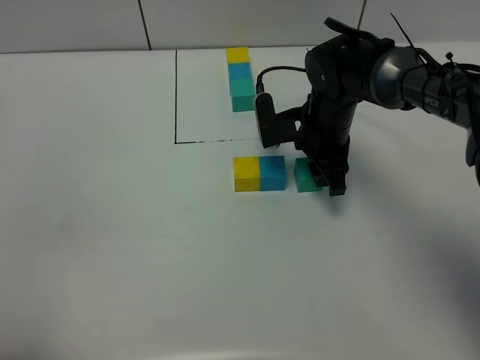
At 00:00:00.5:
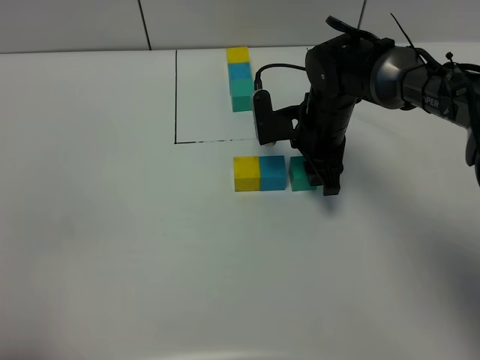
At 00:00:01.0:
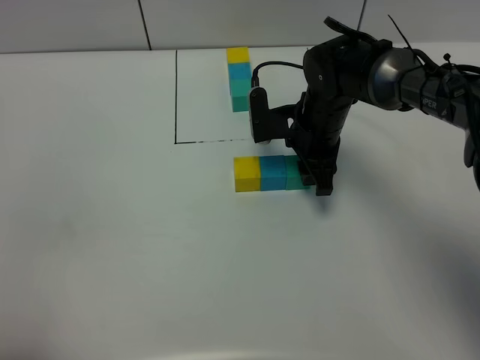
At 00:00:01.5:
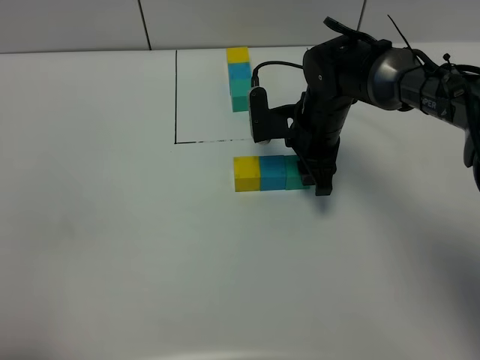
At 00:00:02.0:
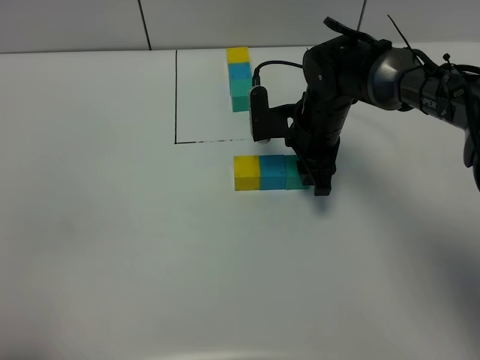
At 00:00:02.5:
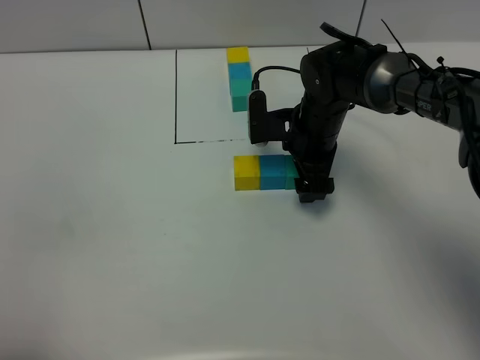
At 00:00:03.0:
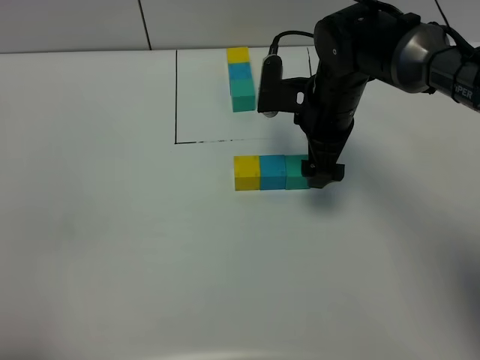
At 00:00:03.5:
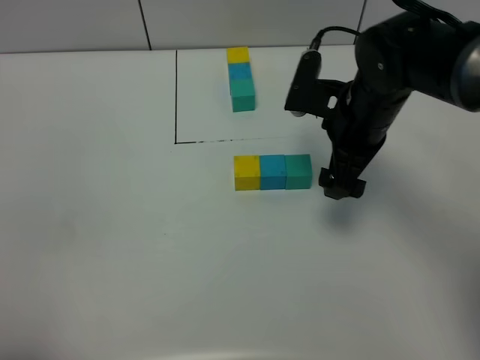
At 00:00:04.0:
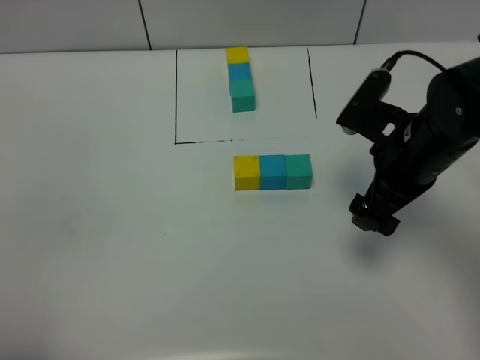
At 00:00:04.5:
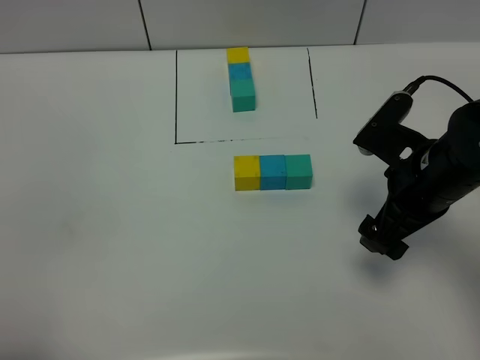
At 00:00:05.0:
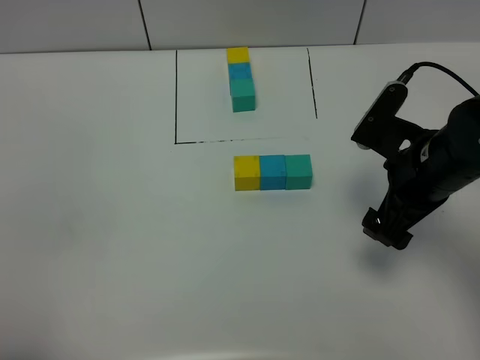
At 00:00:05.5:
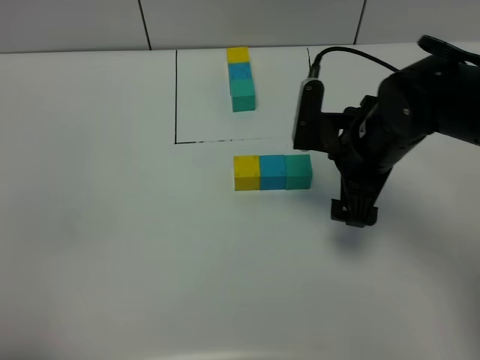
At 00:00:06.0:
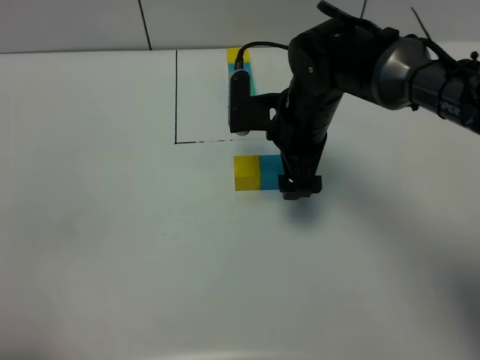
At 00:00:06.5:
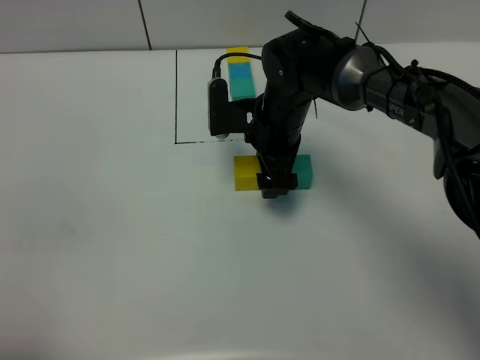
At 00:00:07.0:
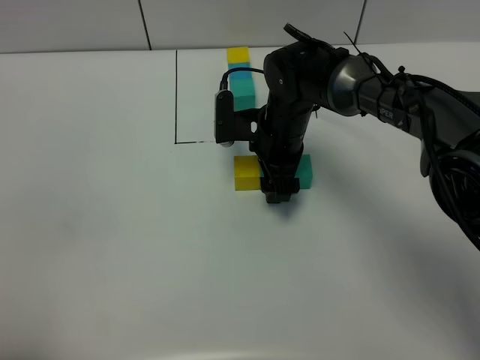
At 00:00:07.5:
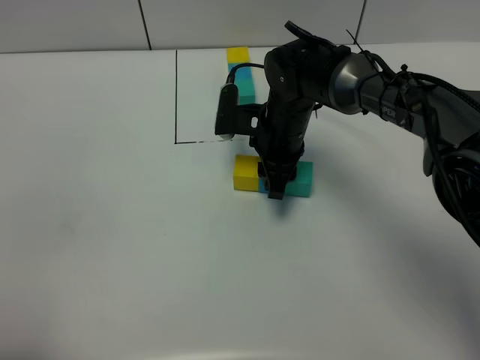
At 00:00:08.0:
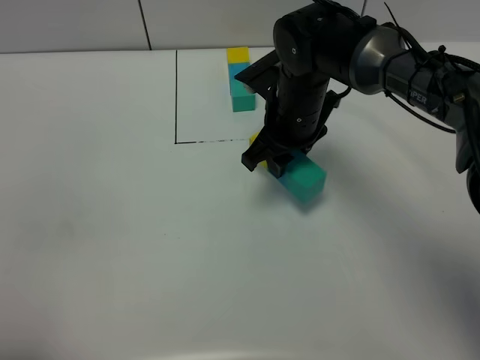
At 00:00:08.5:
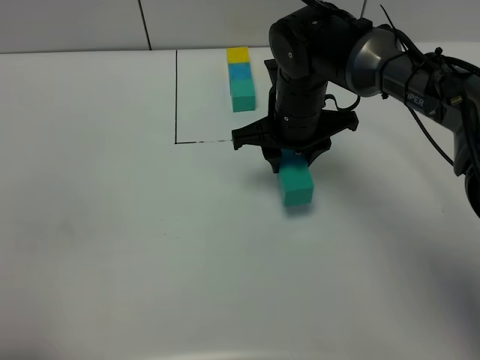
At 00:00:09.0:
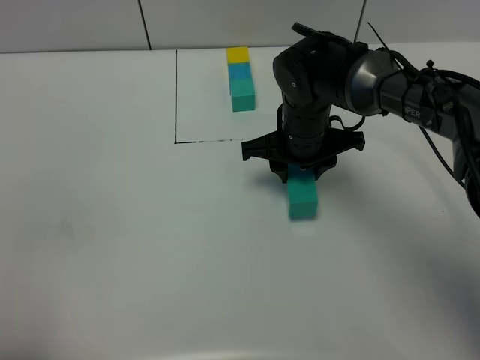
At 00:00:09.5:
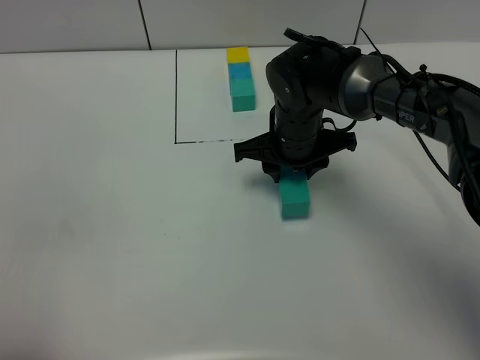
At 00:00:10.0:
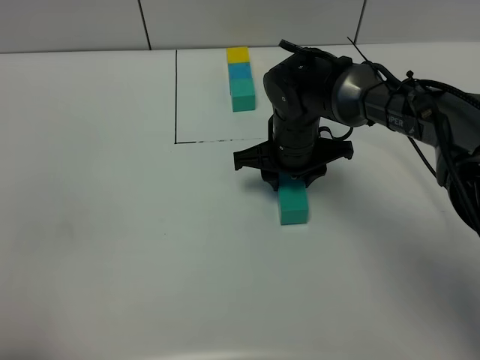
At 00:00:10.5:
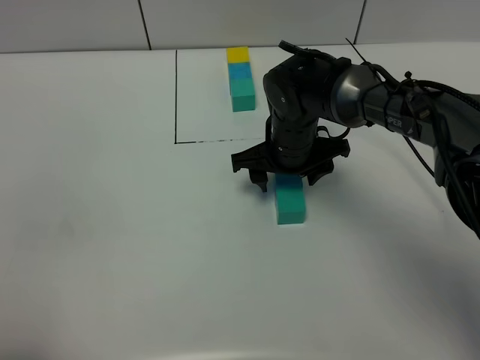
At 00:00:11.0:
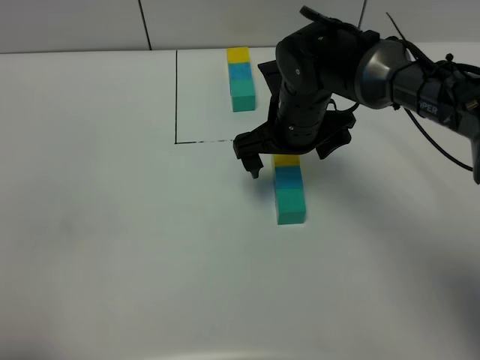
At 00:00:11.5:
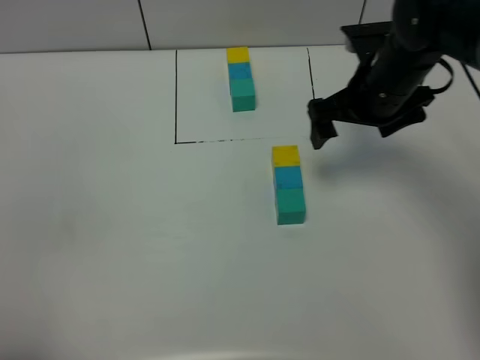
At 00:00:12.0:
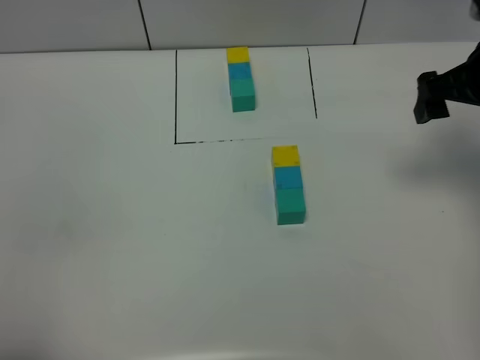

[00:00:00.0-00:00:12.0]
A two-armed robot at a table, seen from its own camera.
Task of the whole recording: According to the building block template in front, assemble the scattered blocks together.
Step, 00:00:00.0 to 00:00:02.5: Put the green build block on the right of the blue build block.
00:00:00.0 to 00:00:02.0: The grippers make only small movements.
00:00:02.0 to 00:00:04.0: The right gripper goes about 15 cm backward, upward and to the right, and opens.
00:00:04.0 to 00:00:06.0: The right gripper heads to the left and forward, covering roughly 15 cm.
00:00:06.0 to 00:00:08.0: The right gripper closes.
00:00:10.0 to 00:00:12.0: The right gripper travels to the right and upward by roughly 25 cm, and opens up.

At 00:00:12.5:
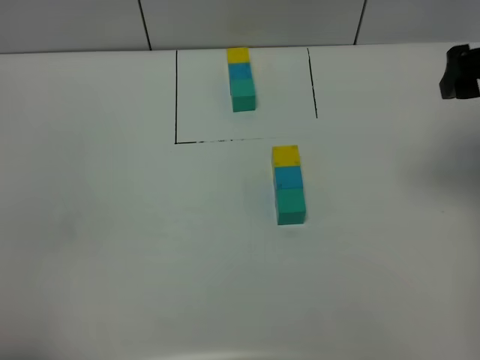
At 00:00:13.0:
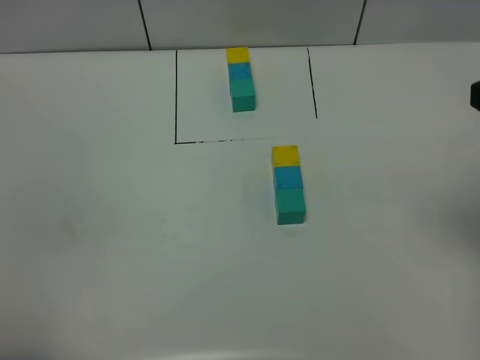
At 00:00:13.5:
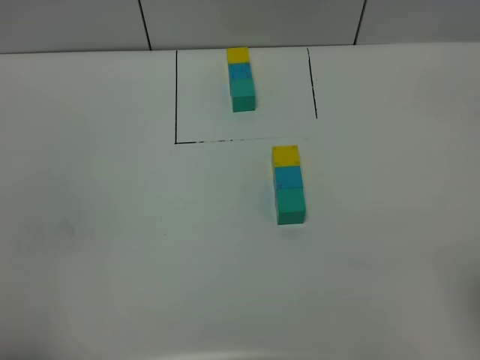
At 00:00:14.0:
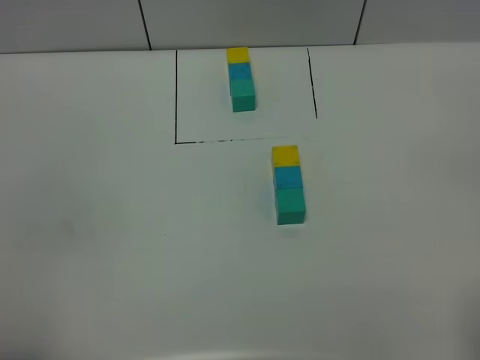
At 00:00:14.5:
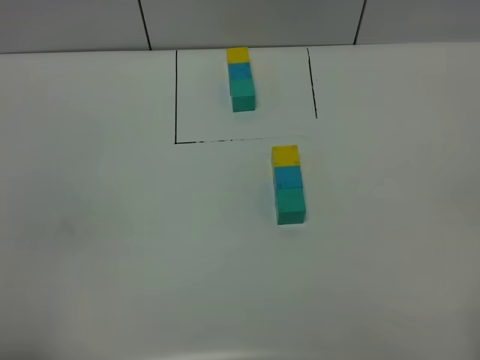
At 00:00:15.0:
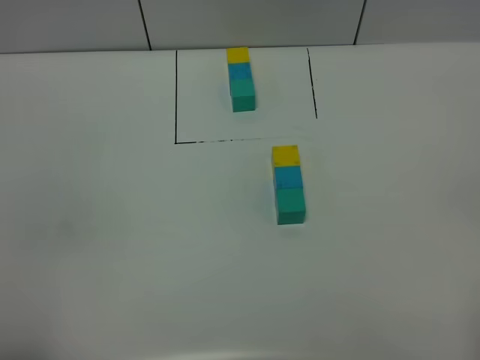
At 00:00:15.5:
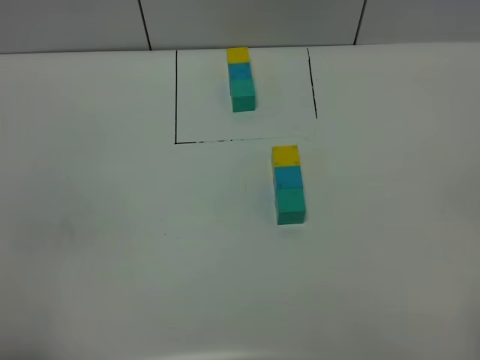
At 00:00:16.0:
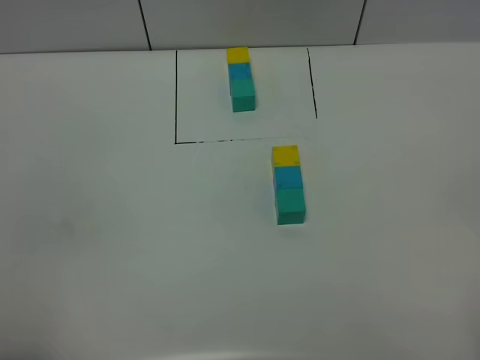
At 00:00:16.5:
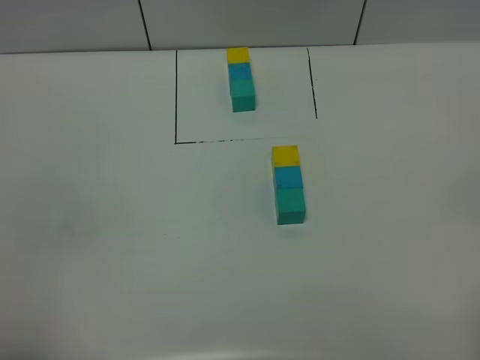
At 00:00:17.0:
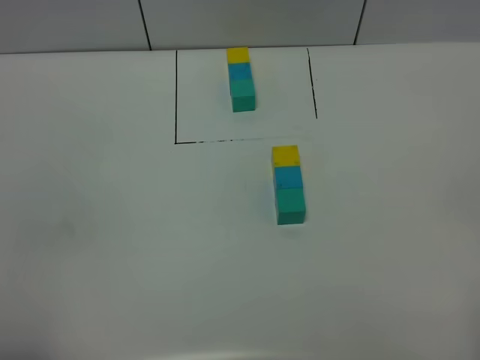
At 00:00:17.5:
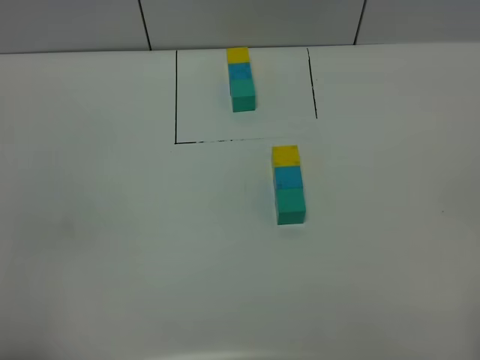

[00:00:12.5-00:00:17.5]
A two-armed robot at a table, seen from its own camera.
Task of the whole recording: According to the building block template in front, assemble the scattered blocks together.
00:00:12.5 to 00:00:15.0: The right gripper is displaced backward by roughly 30 cm.
00:00:15.0 to 00:00:17.5: Neither gripper changes place.
